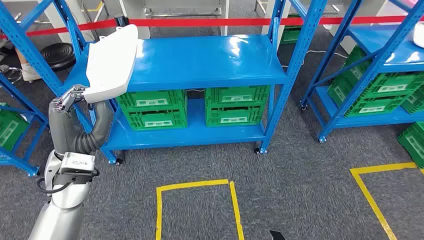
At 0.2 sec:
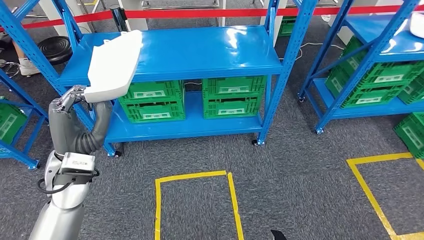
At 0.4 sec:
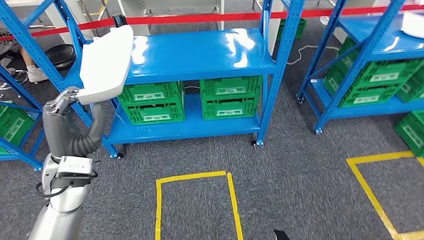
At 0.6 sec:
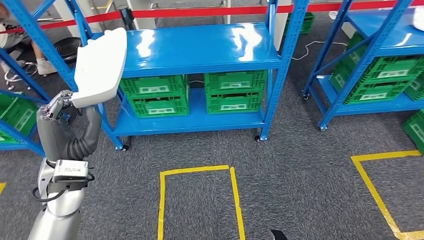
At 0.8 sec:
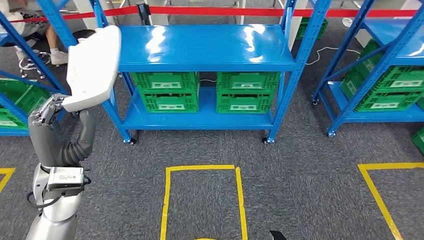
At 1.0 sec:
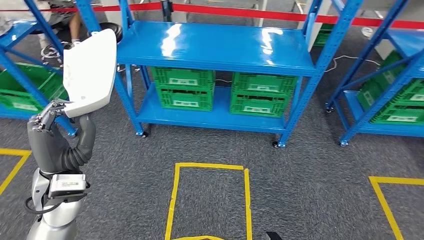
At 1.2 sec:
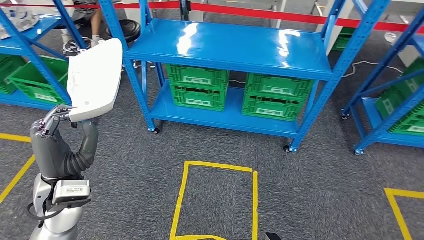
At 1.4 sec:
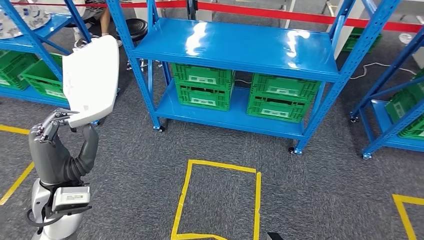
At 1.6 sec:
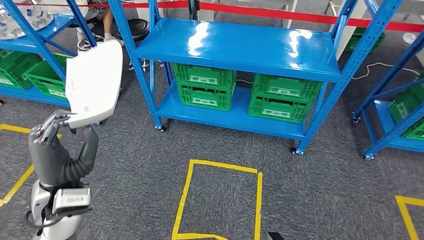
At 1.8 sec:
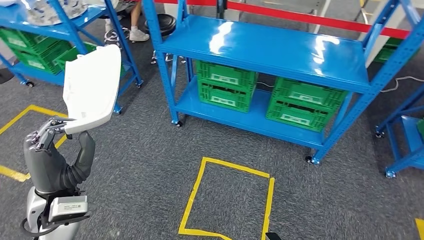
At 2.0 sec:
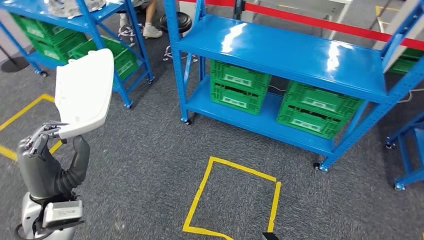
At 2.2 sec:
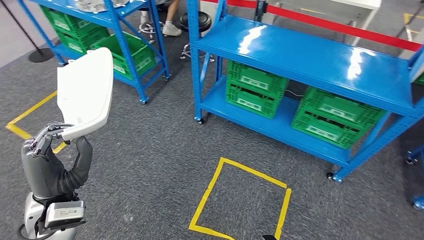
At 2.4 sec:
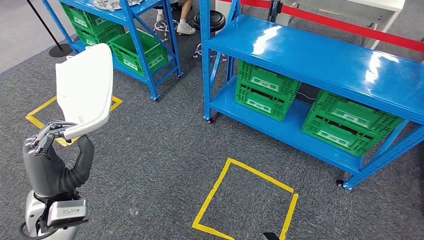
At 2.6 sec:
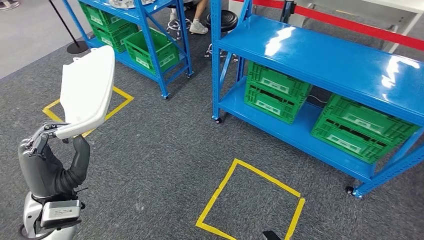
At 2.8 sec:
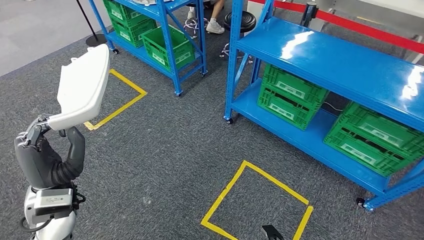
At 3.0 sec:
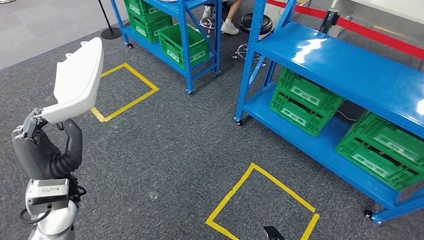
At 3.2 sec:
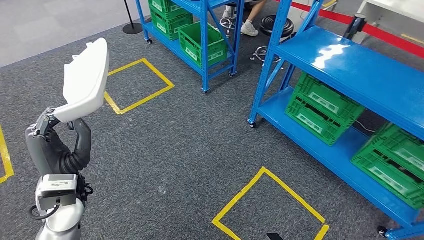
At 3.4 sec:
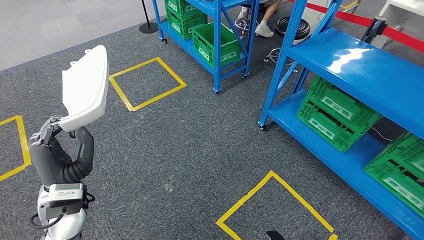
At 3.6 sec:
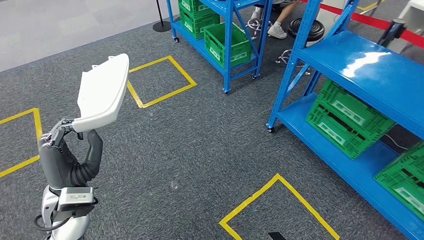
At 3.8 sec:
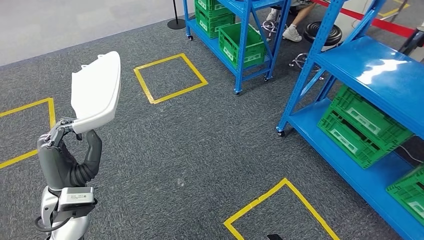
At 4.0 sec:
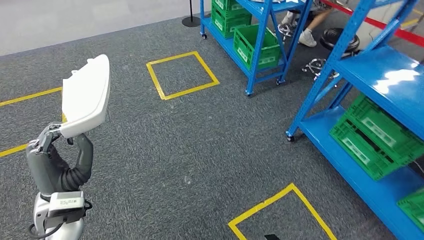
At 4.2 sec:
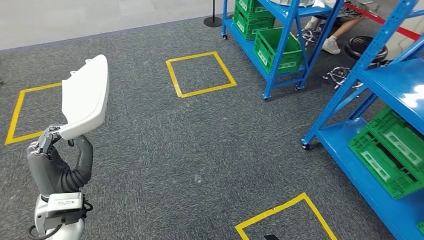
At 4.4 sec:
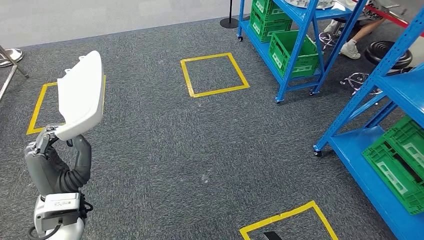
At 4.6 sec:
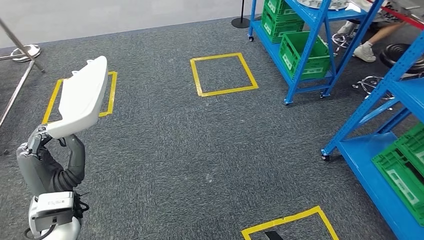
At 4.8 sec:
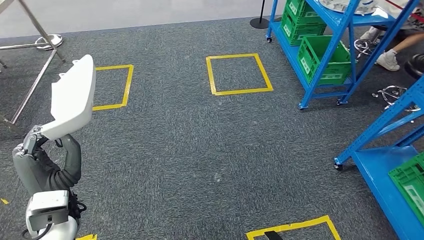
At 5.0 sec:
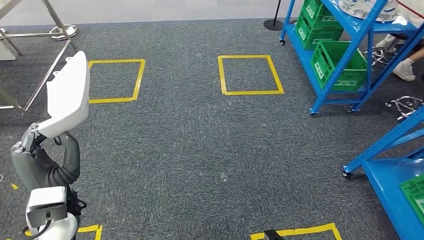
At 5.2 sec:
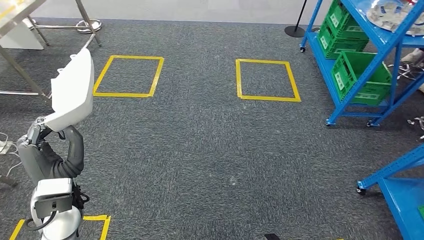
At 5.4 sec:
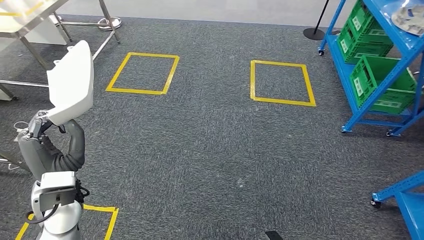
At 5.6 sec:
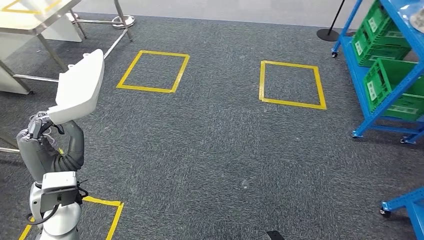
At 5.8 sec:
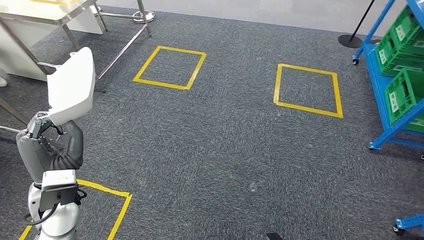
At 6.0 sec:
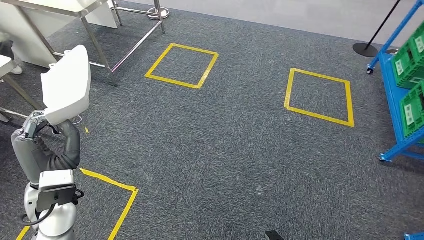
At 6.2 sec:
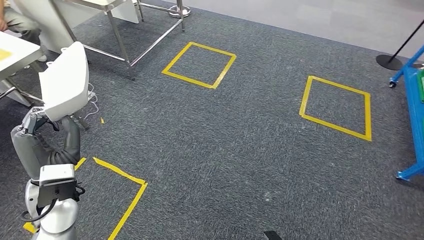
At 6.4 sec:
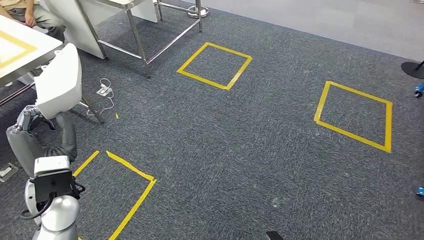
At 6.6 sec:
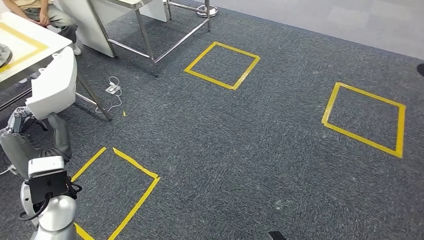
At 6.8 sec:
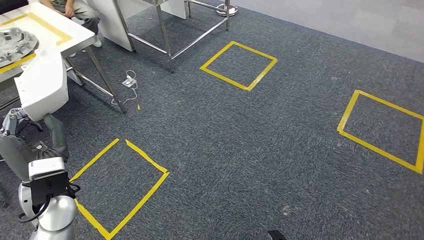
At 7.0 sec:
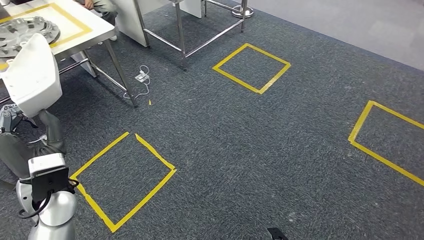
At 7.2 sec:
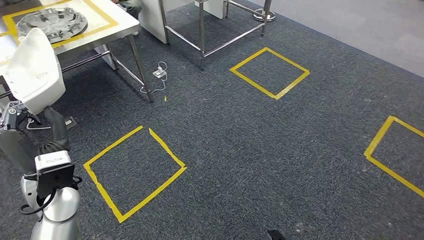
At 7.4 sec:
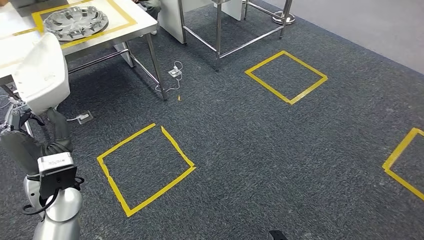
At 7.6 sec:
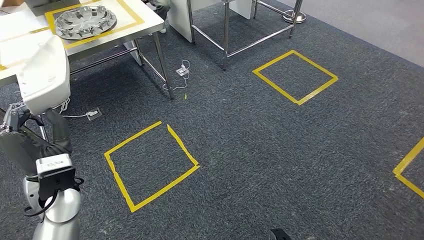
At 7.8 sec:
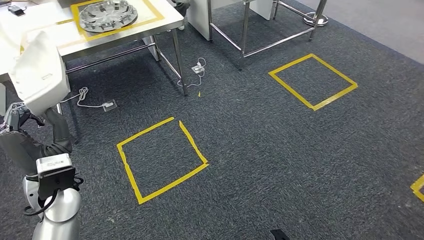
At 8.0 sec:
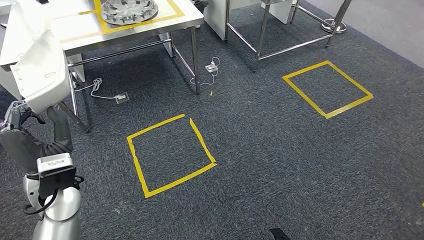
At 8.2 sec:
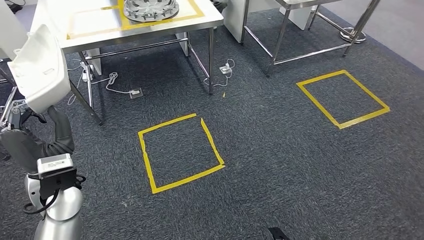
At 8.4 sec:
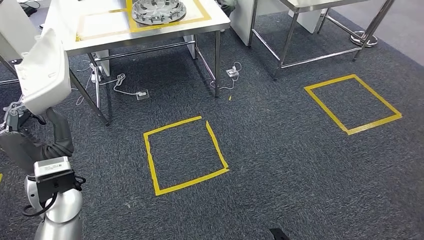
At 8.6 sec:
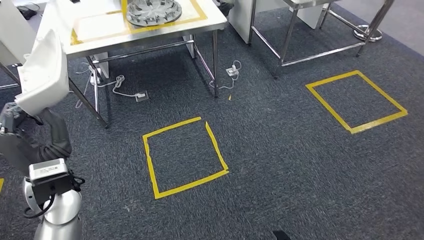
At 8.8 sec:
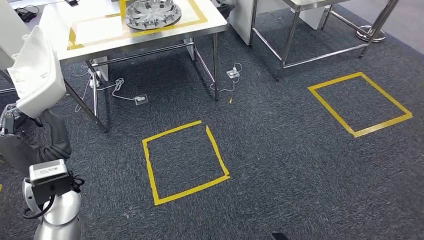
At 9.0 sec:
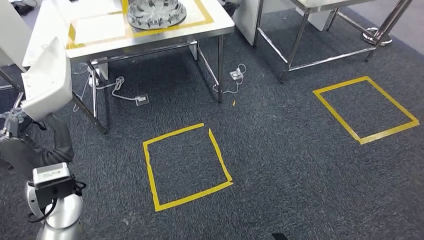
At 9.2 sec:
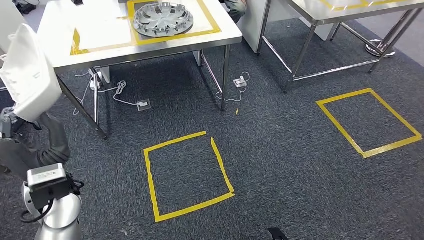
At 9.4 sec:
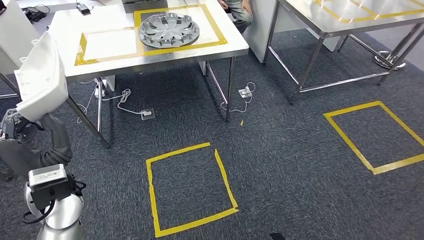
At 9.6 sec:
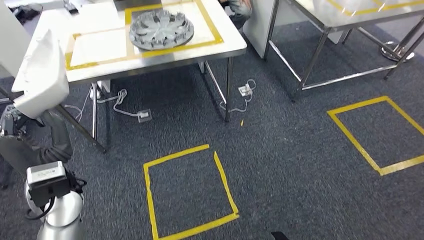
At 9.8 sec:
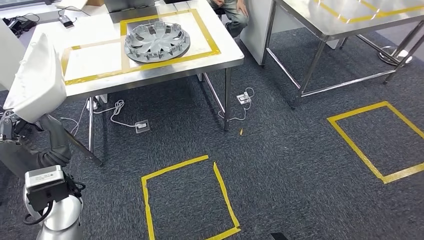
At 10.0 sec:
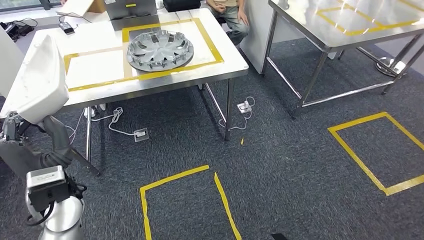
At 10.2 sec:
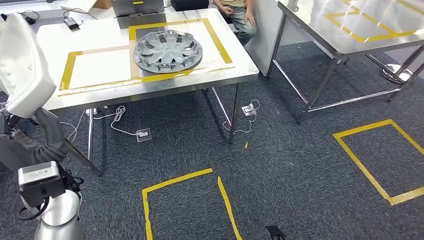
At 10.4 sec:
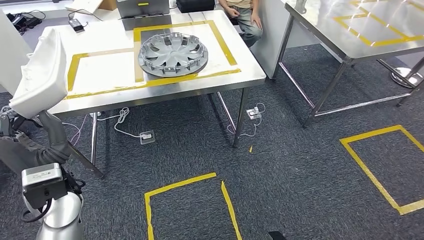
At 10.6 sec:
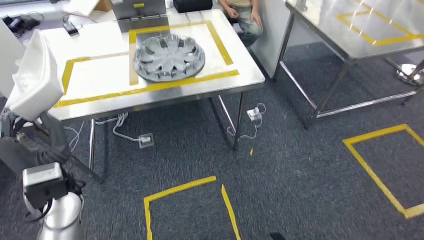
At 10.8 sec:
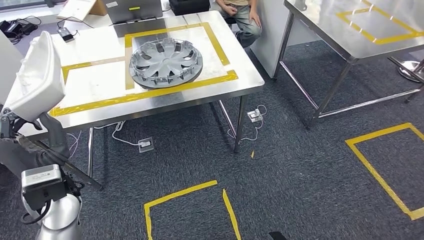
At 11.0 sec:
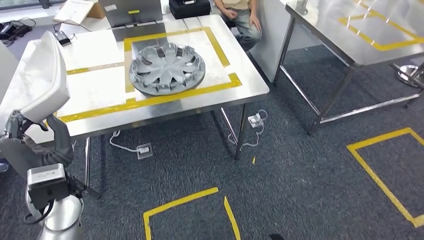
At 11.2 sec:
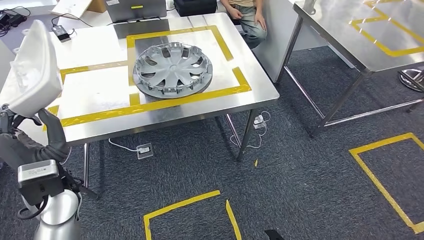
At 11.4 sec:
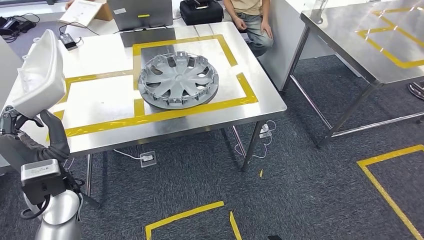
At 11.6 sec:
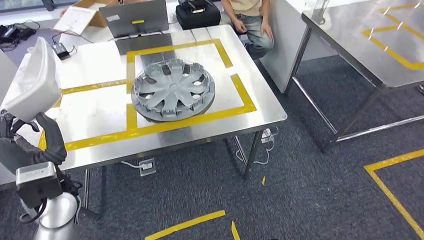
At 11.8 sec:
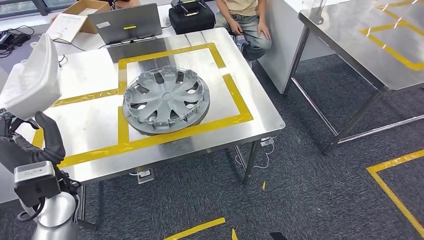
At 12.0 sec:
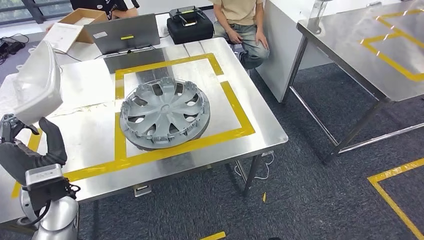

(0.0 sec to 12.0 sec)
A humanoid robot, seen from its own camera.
Step, 0.0 sec - 0.8 sec: Pick up the small component from the shelf.
Step, 1.0 sec - 11.8 sec: Move the small component to the workbench.

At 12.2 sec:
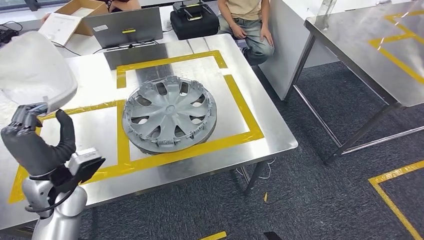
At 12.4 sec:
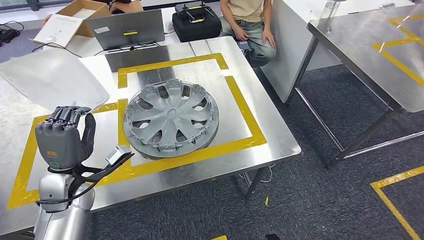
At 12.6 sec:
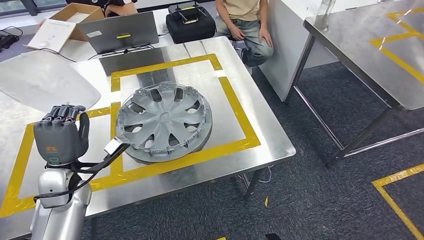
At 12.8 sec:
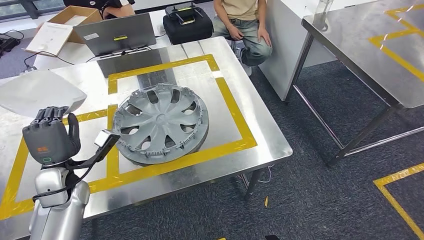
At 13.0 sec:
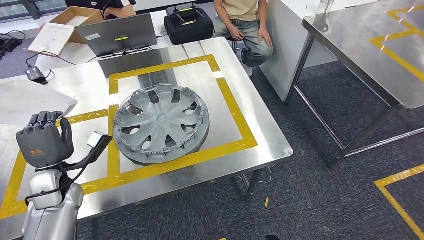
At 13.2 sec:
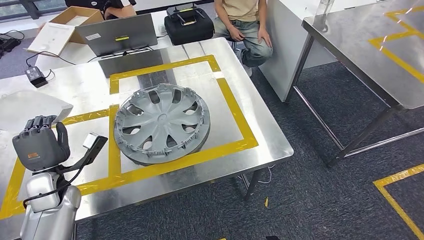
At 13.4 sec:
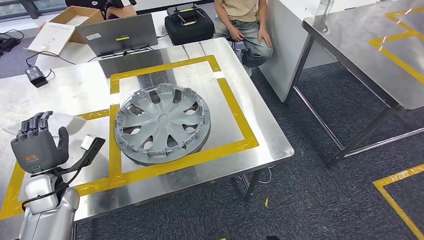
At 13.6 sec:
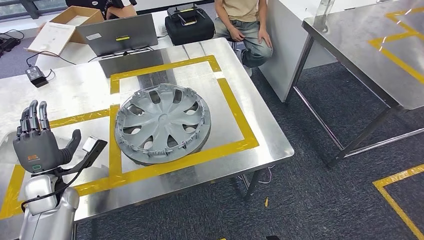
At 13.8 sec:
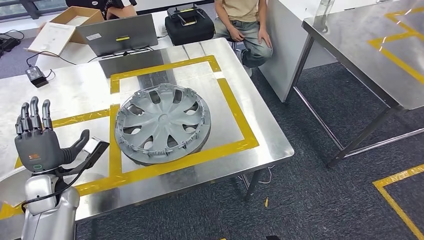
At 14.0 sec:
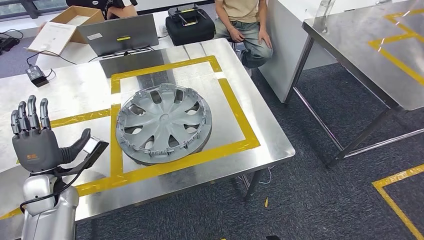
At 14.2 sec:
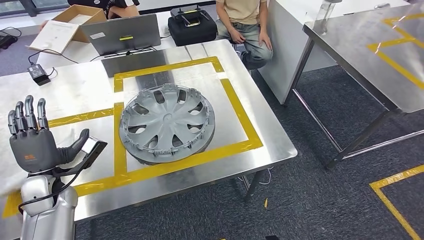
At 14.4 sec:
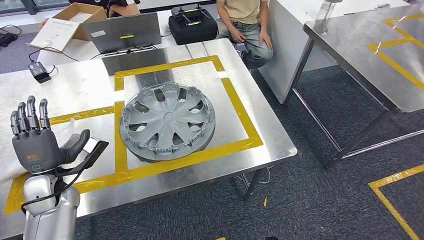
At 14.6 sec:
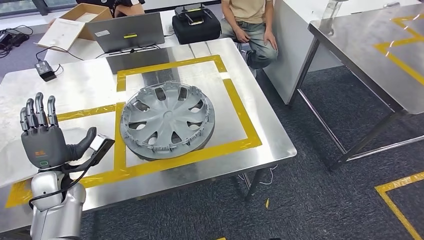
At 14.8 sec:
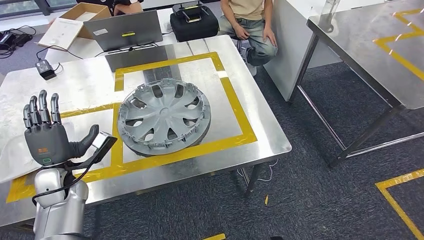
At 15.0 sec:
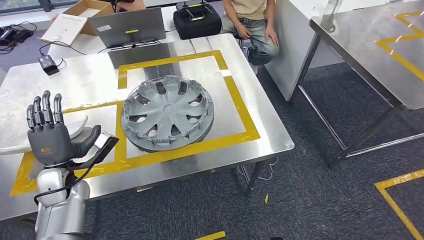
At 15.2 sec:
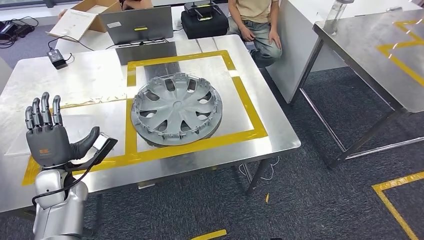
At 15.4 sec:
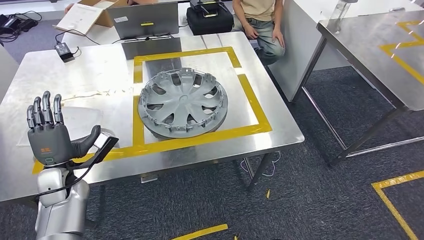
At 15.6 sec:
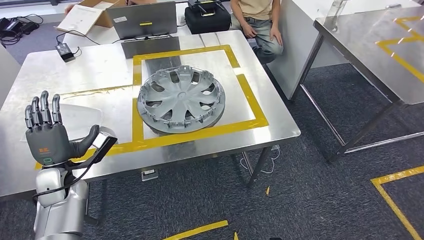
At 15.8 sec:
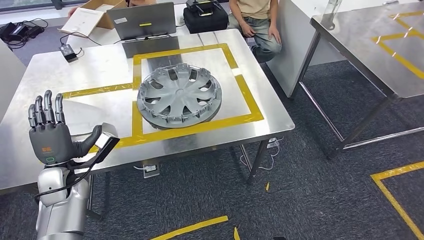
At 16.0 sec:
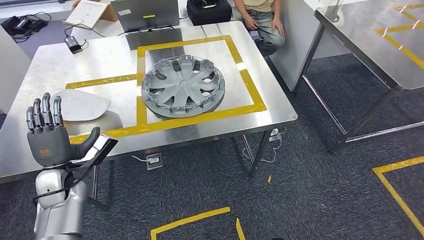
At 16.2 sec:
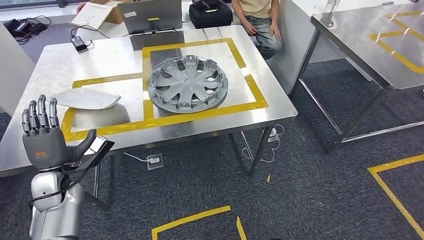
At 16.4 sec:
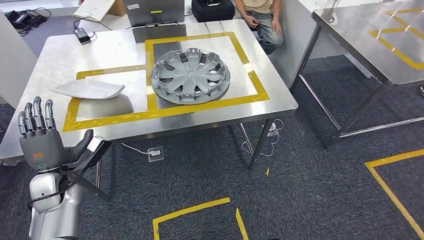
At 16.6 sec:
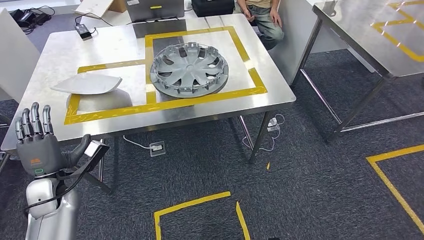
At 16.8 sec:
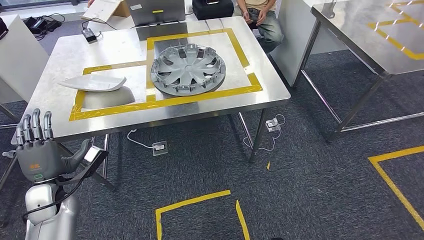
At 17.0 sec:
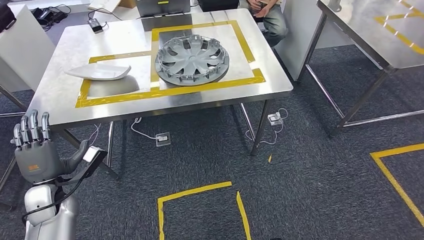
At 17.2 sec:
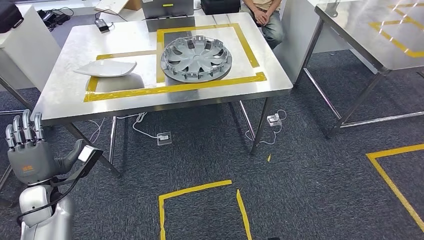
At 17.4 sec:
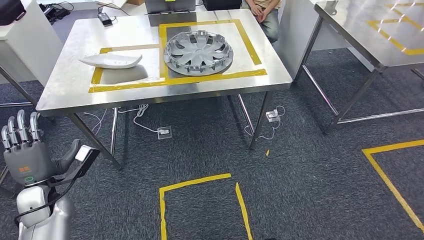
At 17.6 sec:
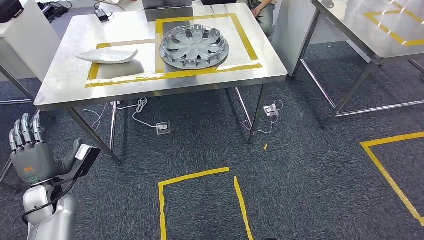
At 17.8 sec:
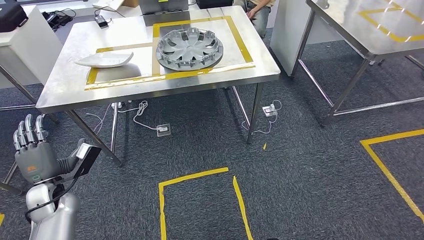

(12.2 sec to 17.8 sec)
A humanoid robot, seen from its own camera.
Step, 12.2 sec - 14.4 sec: Insert the small component into the corresponding slot on the workbench.
